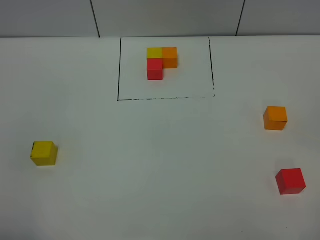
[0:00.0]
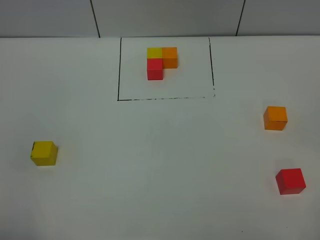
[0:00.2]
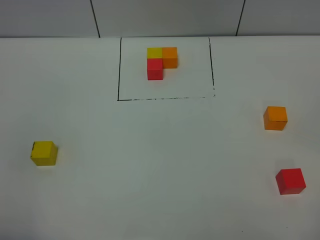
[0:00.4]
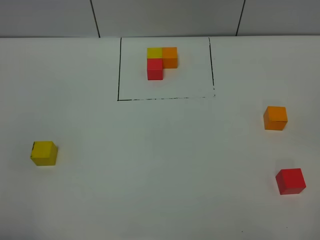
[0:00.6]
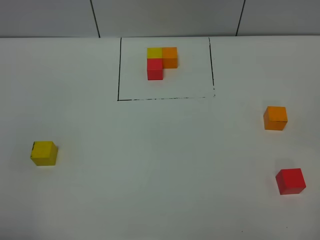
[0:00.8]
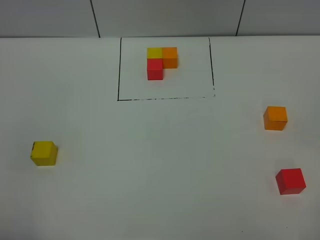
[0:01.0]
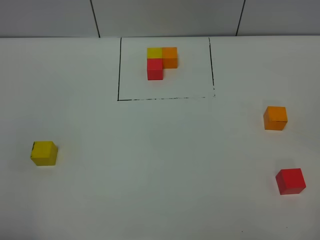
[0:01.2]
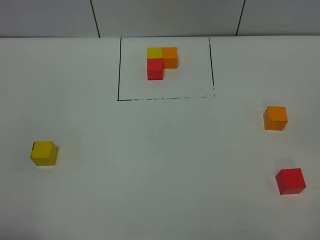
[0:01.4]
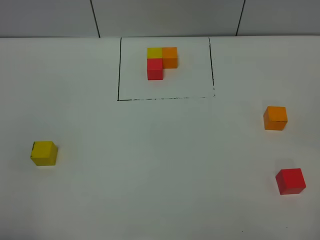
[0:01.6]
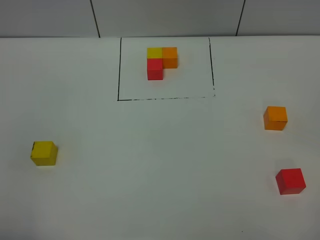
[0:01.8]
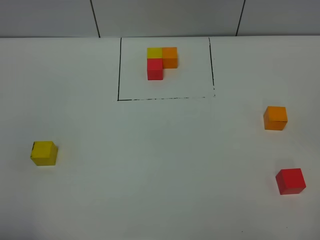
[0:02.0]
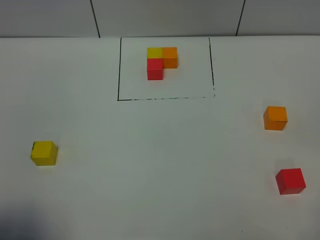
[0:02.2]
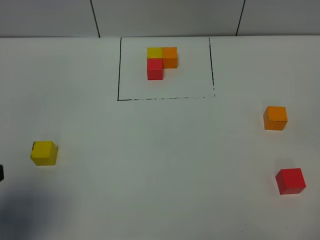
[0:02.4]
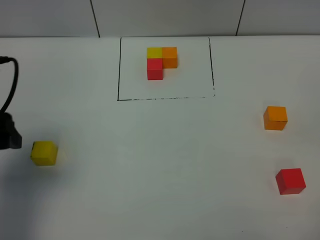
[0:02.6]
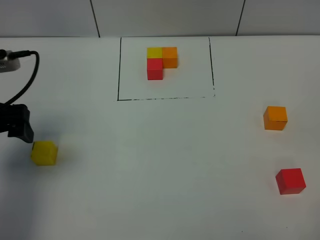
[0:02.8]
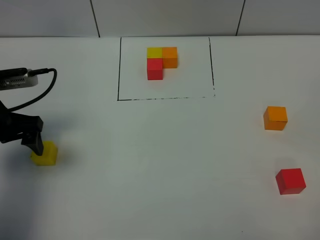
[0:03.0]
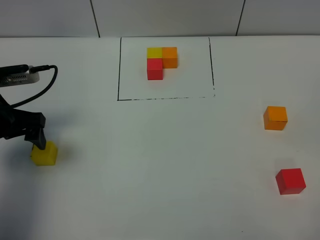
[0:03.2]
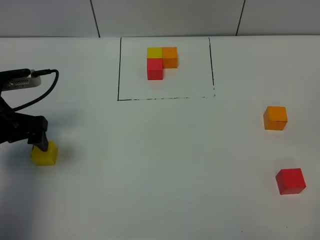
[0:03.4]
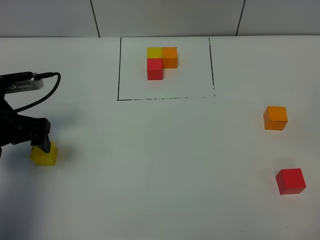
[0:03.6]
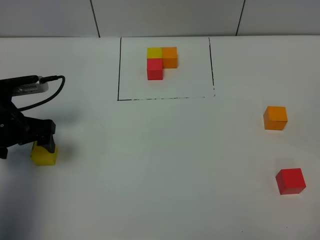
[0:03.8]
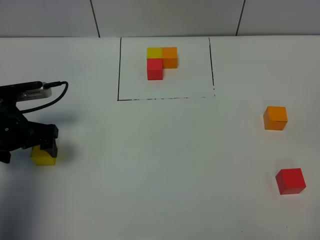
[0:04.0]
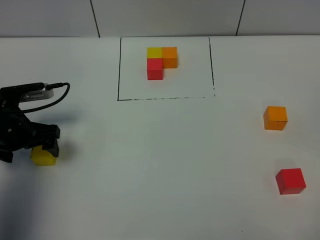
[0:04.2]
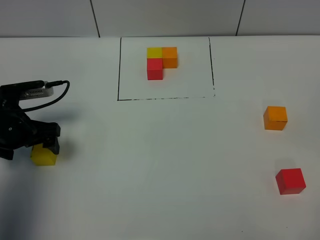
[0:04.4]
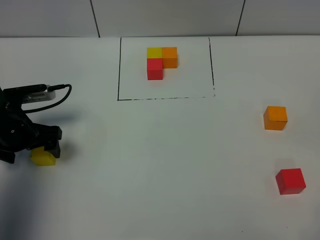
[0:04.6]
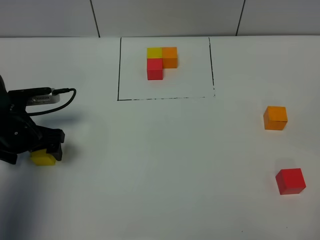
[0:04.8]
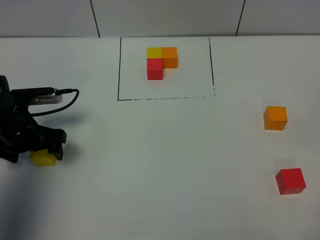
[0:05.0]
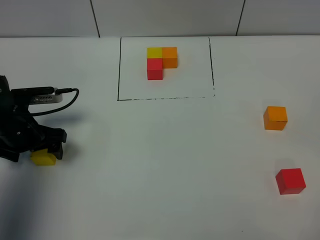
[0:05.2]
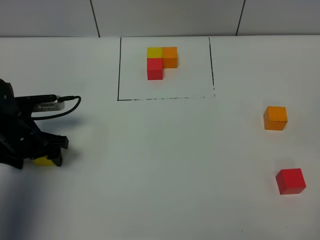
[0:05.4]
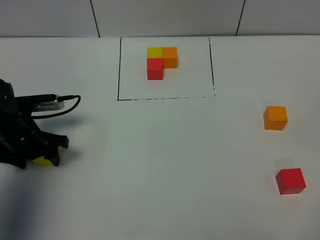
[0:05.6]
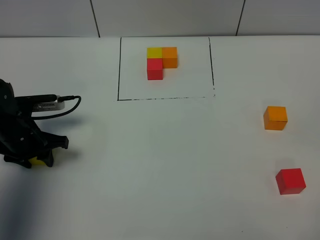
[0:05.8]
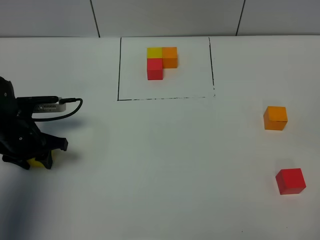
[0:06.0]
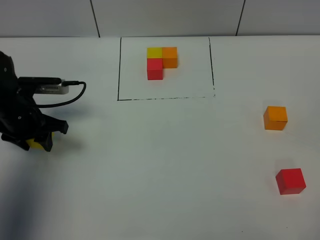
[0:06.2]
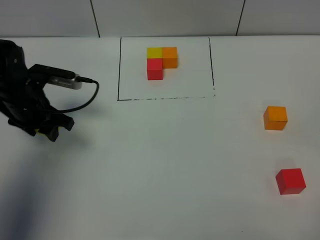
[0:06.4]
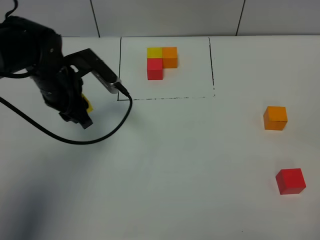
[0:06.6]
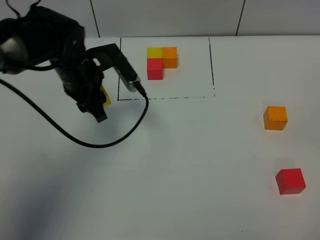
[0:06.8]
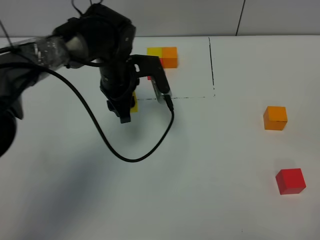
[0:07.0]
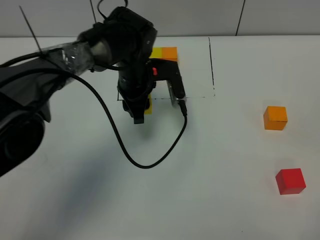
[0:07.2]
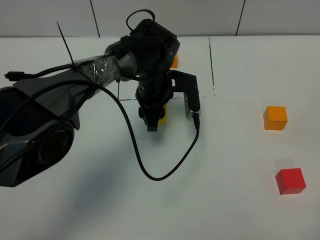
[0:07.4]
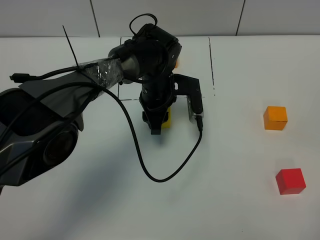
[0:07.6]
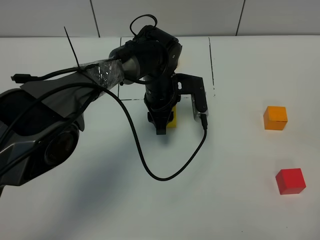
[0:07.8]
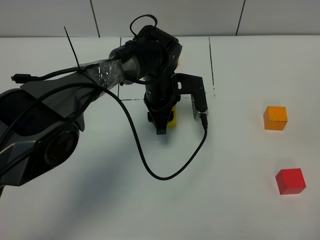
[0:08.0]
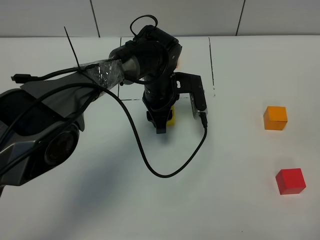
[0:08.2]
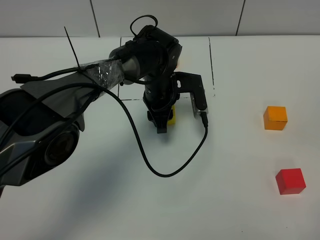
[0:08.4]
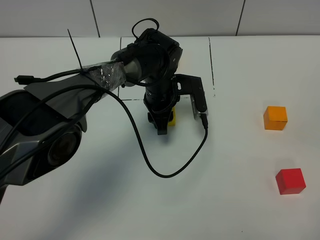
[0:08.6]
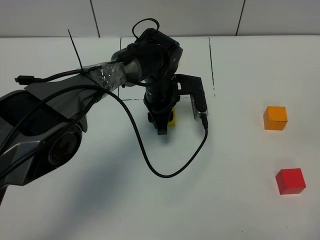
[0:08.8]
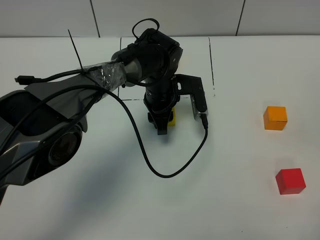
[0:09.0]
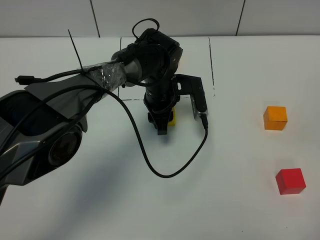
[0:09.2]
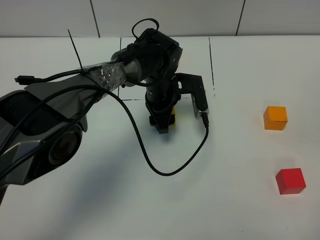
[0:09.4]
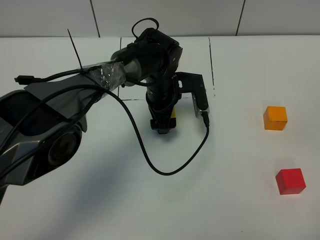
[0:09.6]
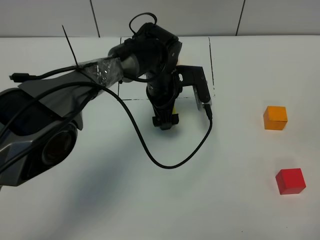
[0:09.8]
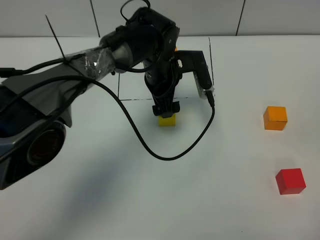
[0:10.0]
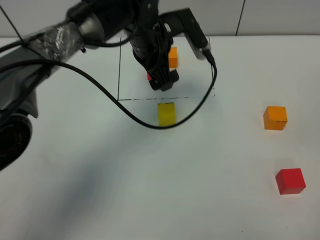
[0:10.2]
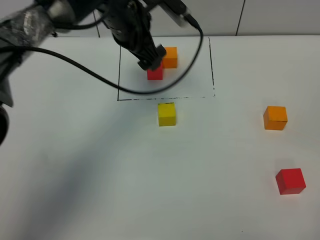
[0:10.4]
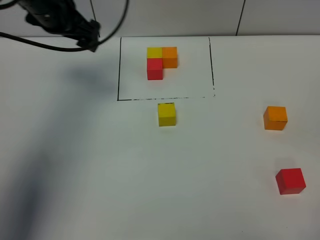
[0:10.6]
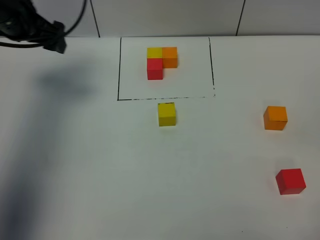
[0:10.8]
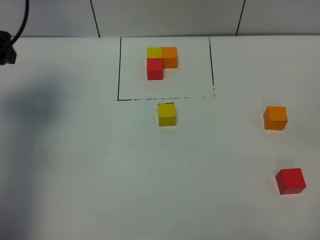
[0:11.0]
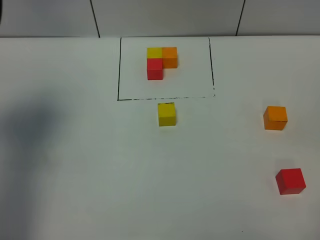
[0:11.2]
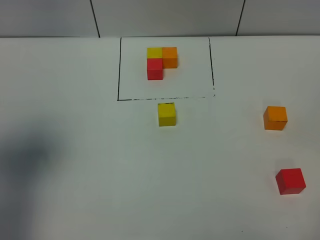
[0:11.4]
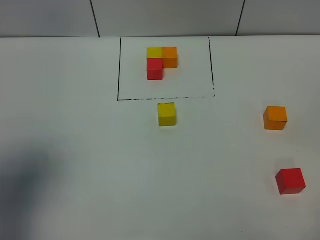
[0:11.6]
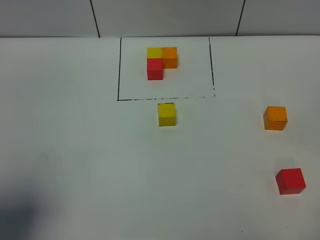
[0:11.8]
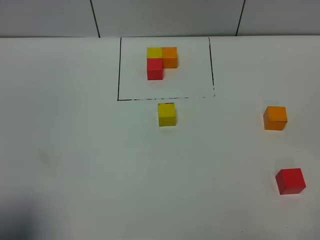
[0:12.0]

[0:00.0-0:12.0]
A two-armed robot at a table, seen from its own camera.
Task of the whole recording: According to the building block template in front, assemble the scattered blocks together.
Step, 0:00.0 to 0:09.4: Put the yellow build block in the center of the table.
0:00.0 to 0:01.6: Both grippers stay put.
0:01.6 to 0:03.0: The left gripper travels forward by about 30 cm.
0:03.0 to 0:04.4: The left gripper shifts roughly 5 cm downward.
0:04.4 to 0:06.0: The left gripper closes up.
0:06.0 to 0:07.6: The left gripper heads to the right, covering roughly 25 cm.
0:07.6 to 0:09.0: Neither gripper changes place.
0:09.0 to 0:10.4: The left gripper heads upward and to the left, covering some 20 cm, and opens.
0:10.4 to 0:12.0: The left gripper heads backward and to the left, covering approximately 40 cm.

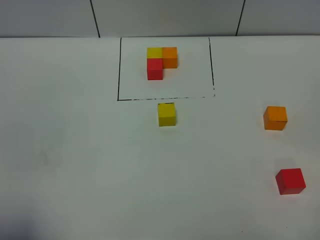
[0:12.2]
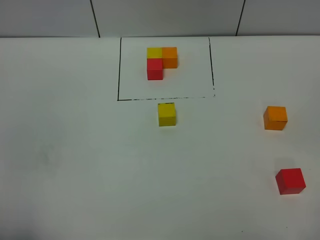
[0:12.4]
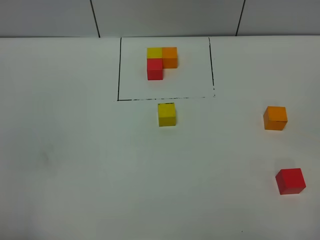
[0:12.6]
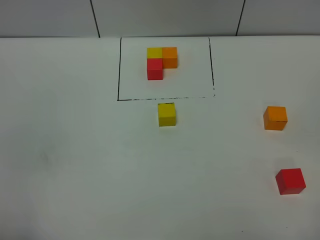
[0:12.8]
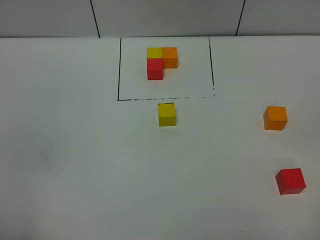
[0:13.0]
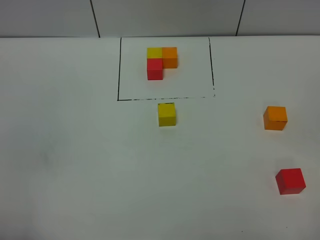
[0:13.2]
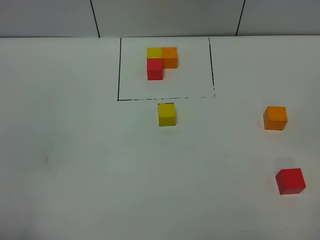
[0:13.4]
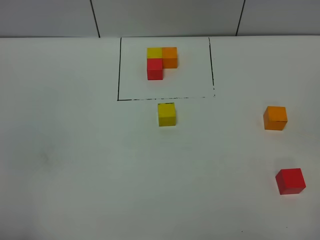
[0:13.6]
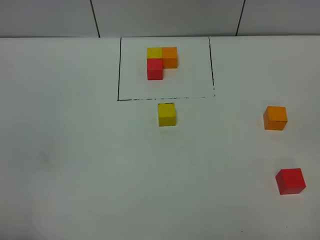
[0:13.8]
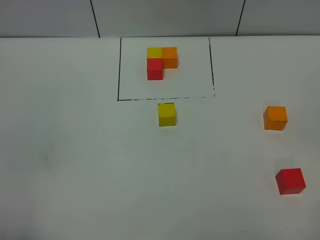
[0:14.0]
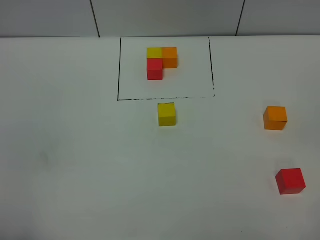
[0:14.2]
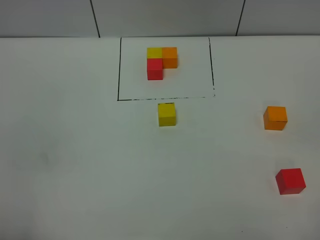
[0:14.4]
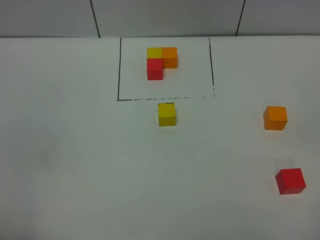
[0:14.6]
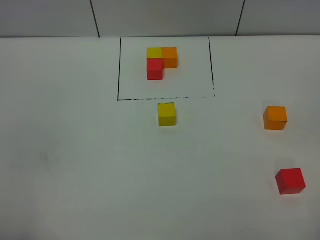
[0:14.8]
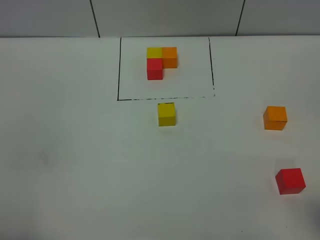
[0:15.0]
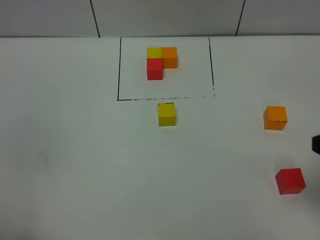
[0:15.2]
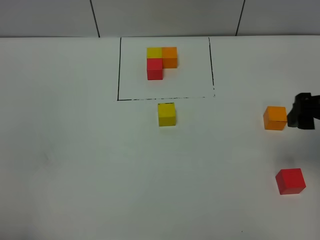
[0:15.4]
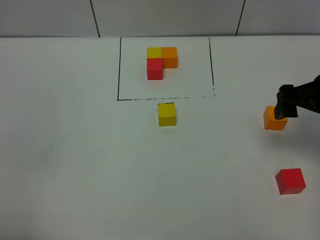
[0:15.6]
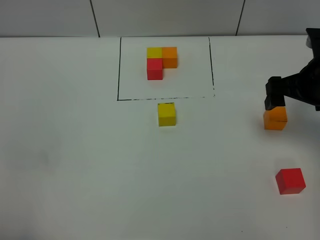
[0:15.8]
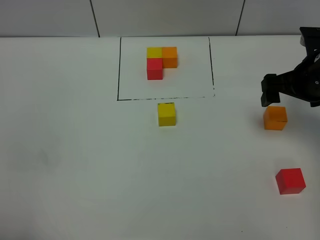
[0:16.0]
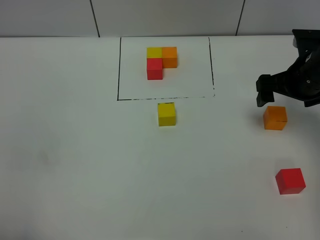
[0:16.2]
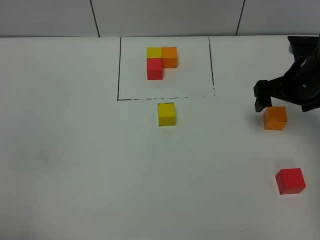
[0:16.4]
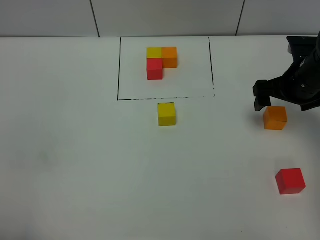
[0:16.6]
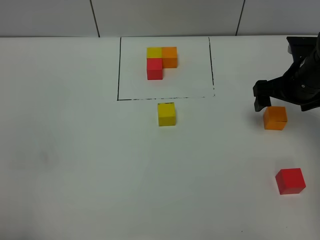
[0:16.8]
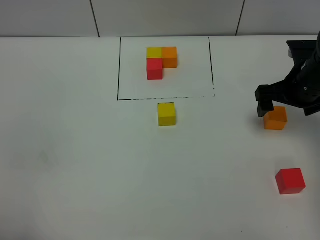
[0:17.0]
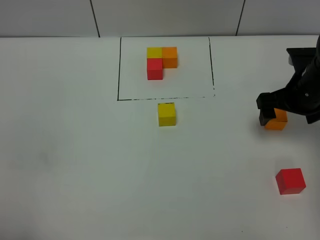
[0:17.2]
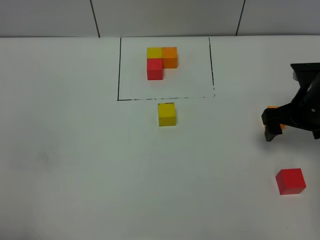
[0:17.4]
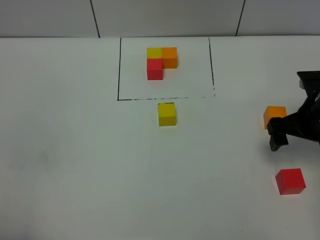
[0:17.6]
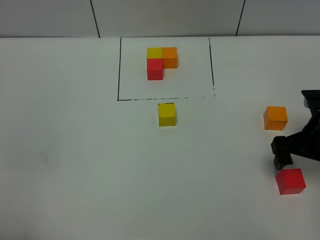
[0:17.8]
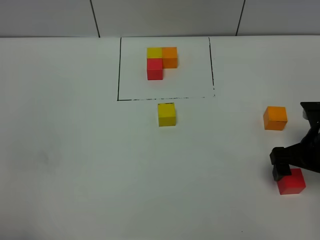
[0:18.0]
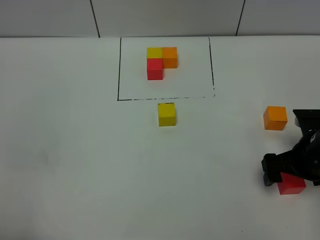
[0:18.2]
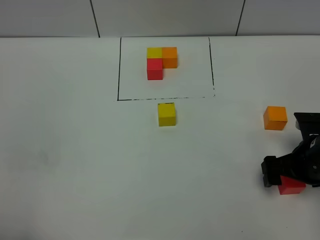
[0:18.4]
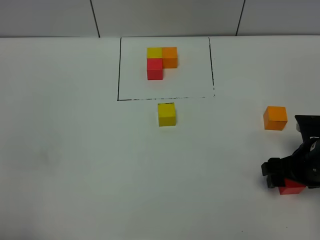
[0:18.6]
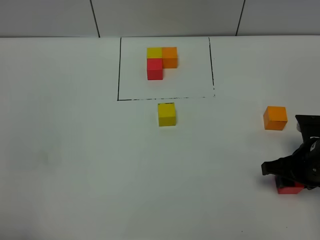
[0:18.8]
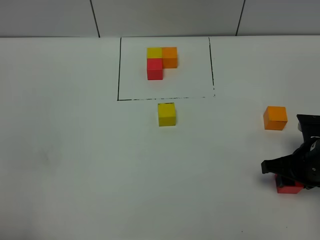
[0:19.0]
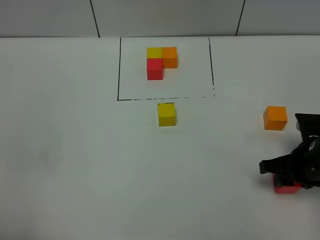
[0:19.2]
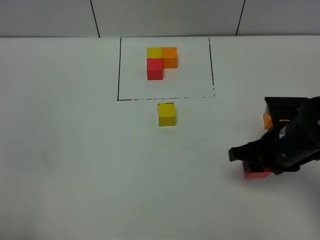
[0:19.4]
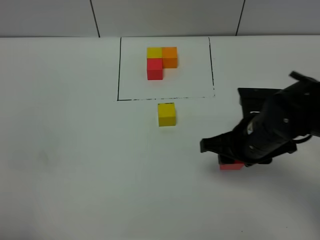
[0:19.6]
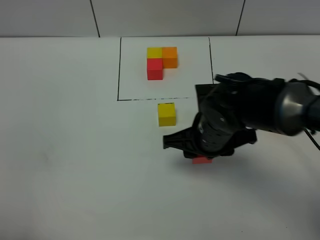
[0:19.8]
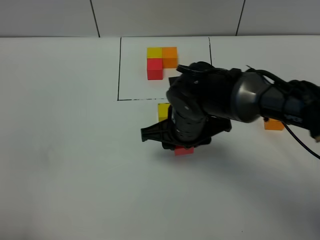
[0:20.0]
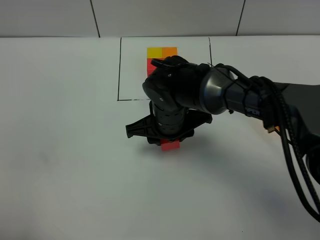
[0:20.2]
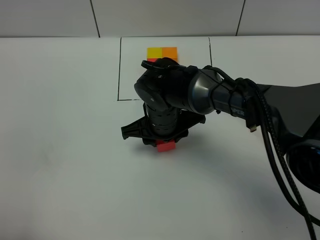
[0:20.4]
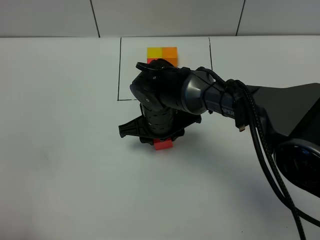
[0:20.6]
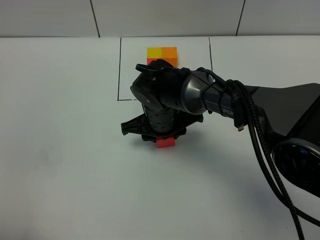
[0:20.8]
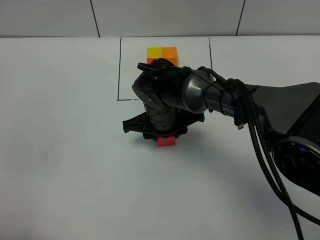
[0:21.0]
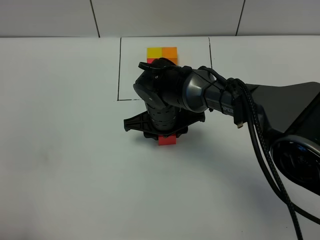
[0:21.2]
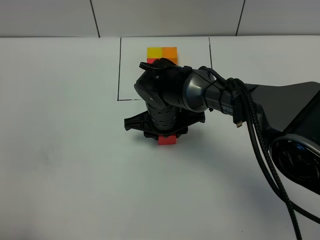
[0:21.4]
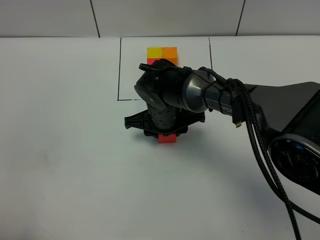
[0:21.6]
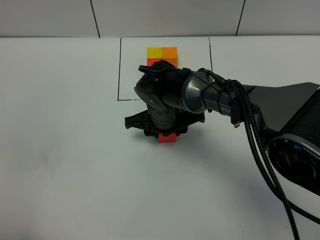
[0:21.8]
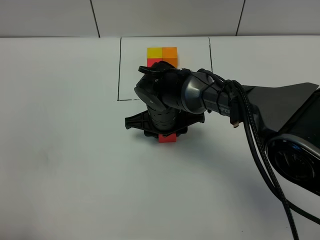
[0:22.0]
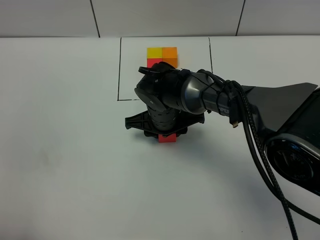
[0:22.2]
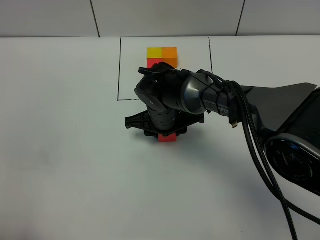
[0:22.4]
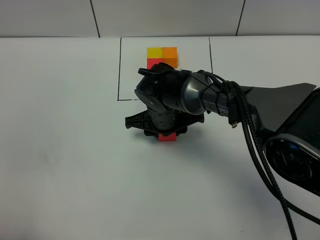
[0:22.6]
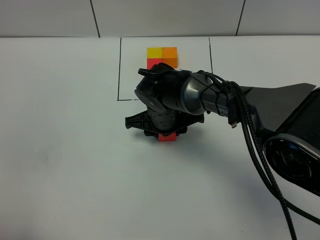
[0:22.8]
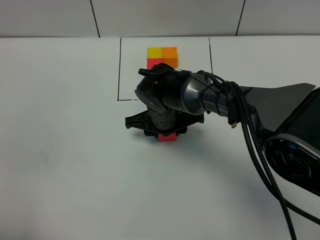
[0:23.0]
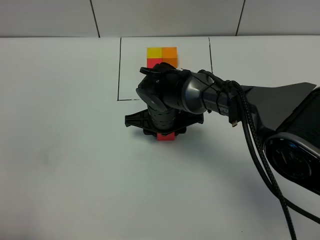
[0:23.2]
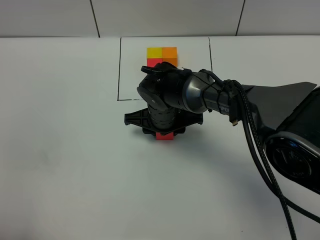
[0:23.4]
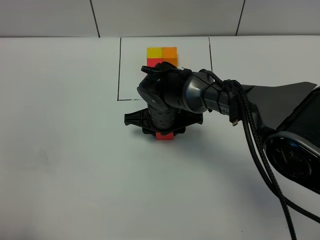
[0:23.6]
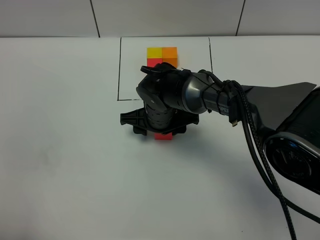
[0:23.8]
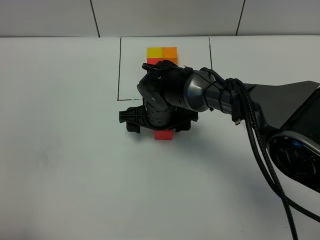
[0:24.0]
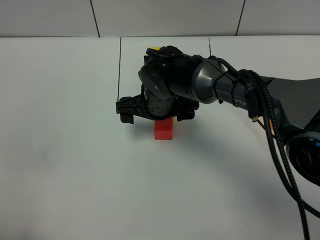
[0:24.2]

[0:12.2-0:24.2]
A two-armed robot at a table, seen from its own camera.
Task of the whole recording: According to the building block template in front, assemble the scattered blocks together.
Step, 0:12.2 to 0:23.6: Put the red build block on the behind of the yellow build block.
0:13.8 to 0:15.2: The right gripper travels forward by about 15 cm.
0:15.2 to 0:16.6: The right gripper heads forward and downward, covering about 25 cm.
0:16.6 to 0:18.2: The right gripper moves backward, approximately 10 cm.
0:18.2 to 0:19.8: The right gripper heads to the left, covering roughly 20 cm, and closes.
0:19.8 to 0:21.2: The right gripper shifts roughly 10 cm forward and to the left.
0:21.2 to 0:22.6: Neither gripper changes place.
0:22.6 to 0:24.2: The right gripper shifts roughly 5 cm upward, and opens.
